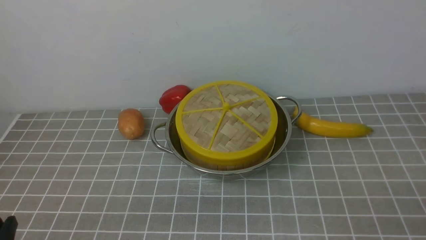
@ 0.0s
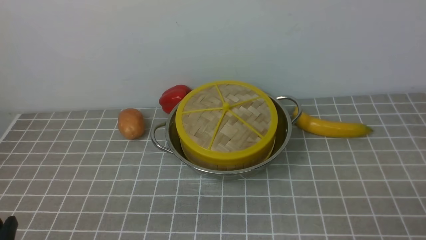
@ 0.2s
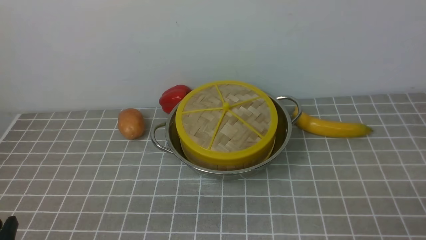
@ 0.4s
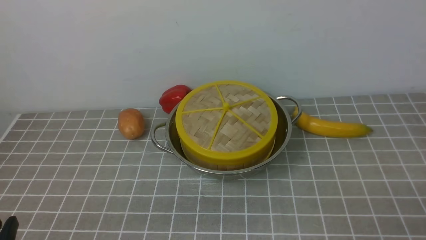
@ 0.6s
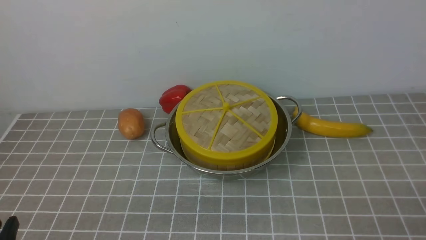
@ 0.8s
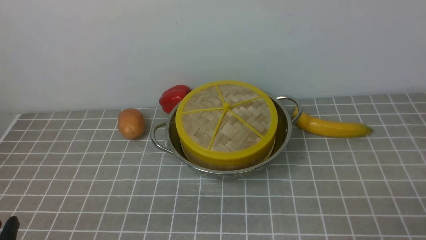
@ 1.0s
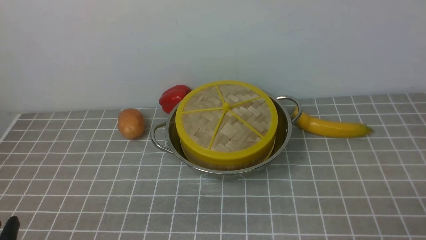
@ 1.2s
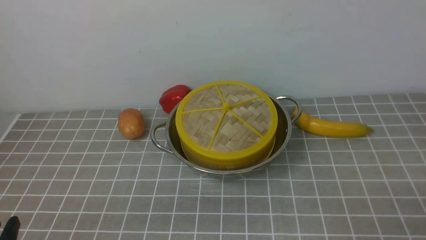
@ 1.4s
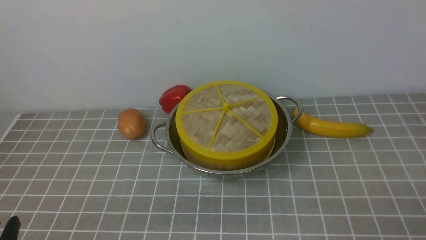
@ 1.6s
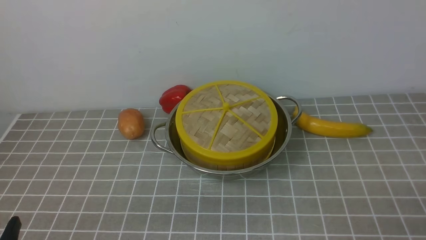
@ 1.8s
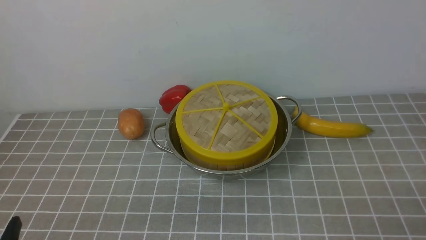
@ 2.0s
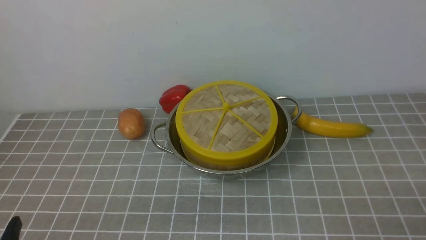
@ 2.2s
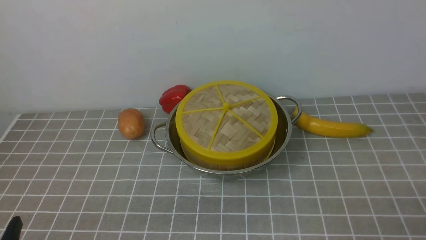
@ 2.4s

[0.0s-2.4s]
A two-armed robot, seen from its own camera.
Task of the whole recording: place the steamer in the pot on the grey tablecloth, and put the lid on the steamer.
1.2s to 2.4s: Both grippers stay put.
